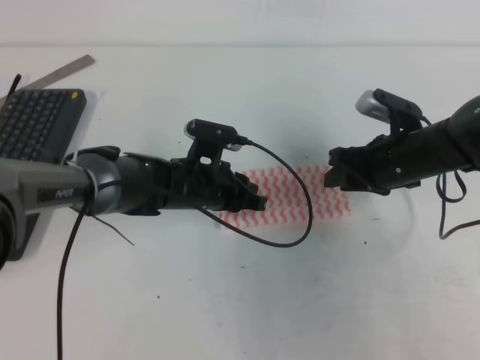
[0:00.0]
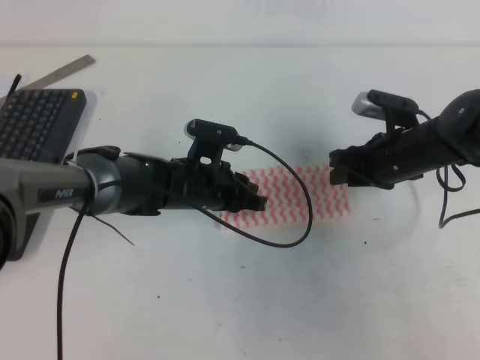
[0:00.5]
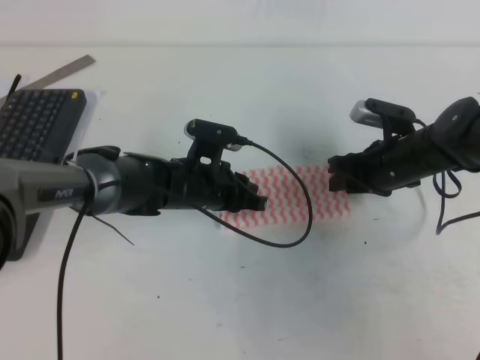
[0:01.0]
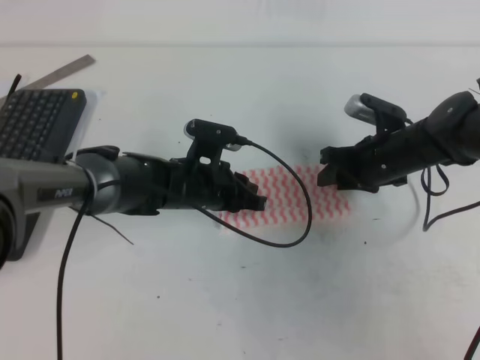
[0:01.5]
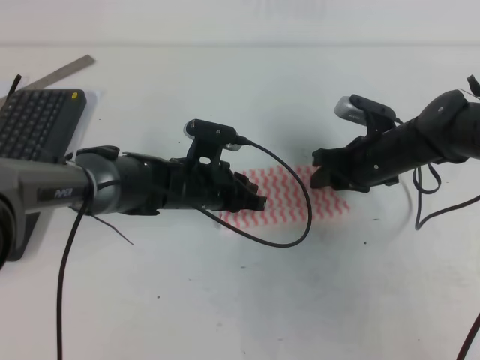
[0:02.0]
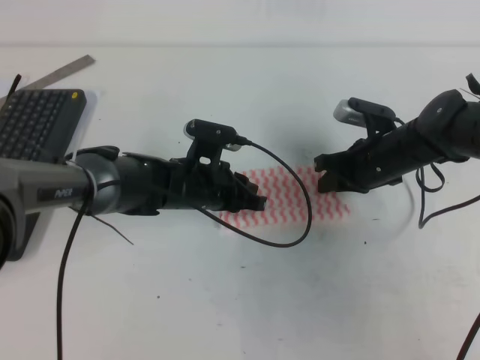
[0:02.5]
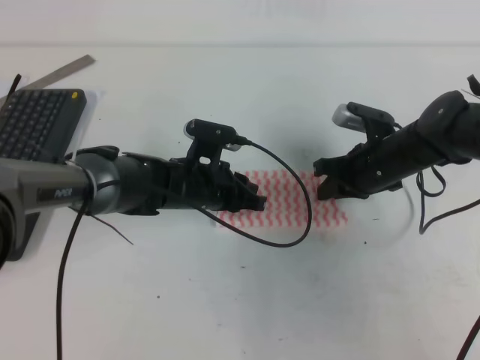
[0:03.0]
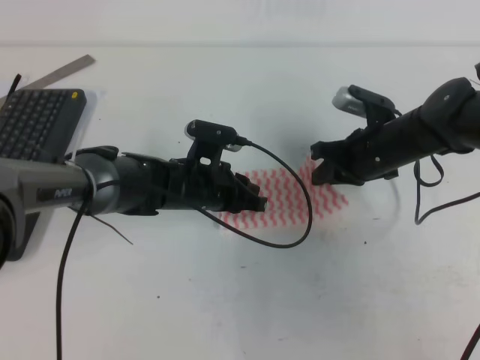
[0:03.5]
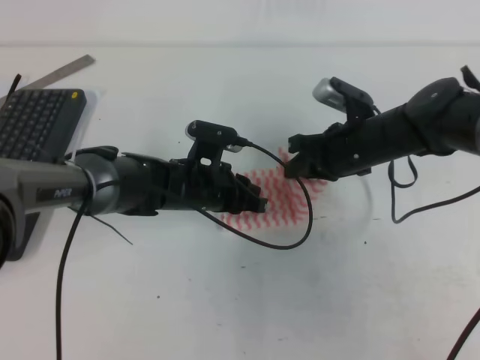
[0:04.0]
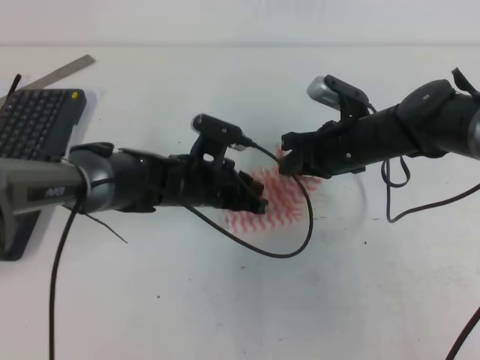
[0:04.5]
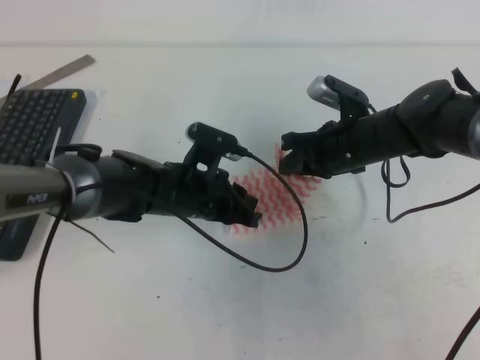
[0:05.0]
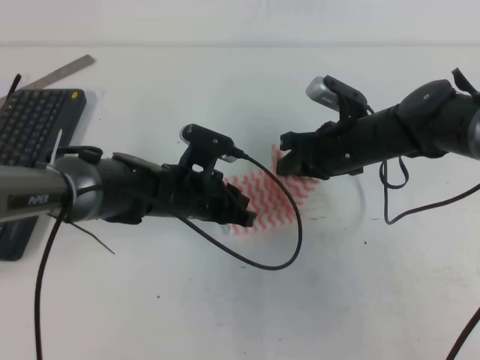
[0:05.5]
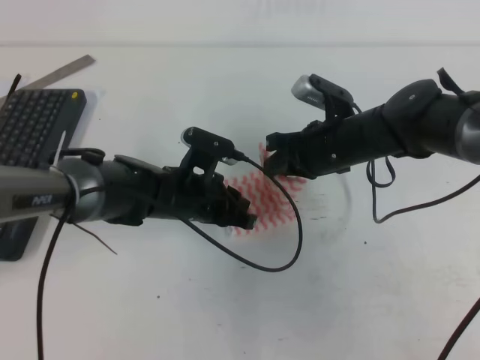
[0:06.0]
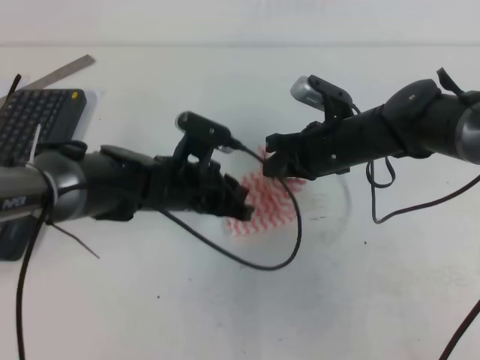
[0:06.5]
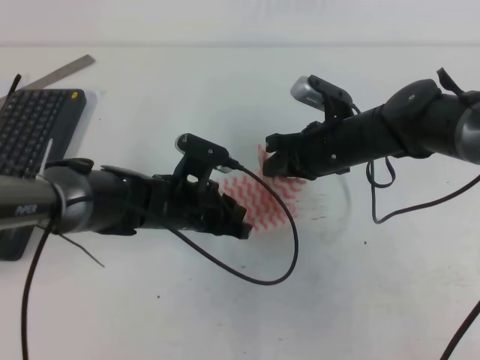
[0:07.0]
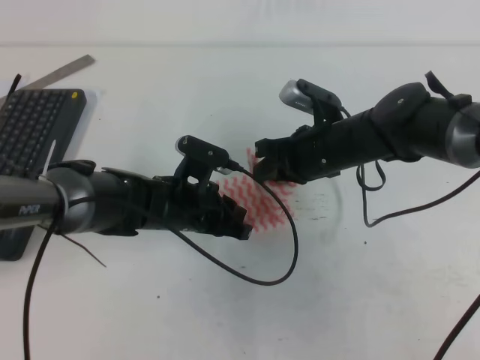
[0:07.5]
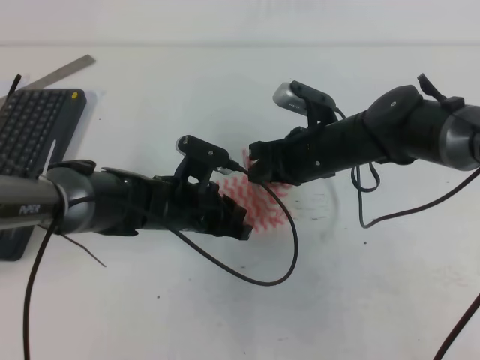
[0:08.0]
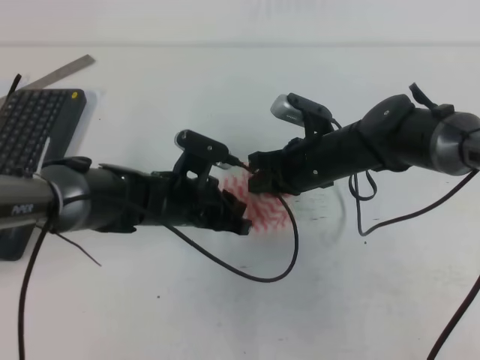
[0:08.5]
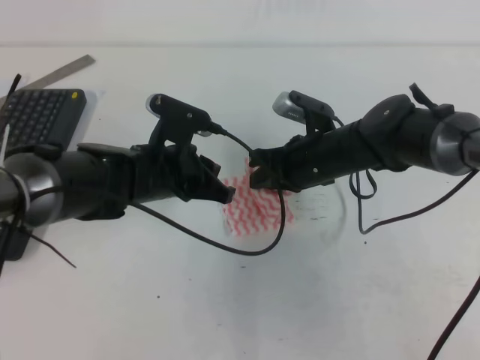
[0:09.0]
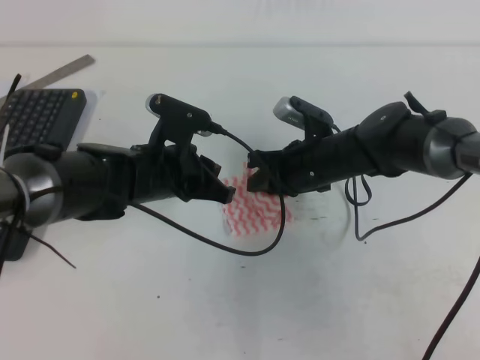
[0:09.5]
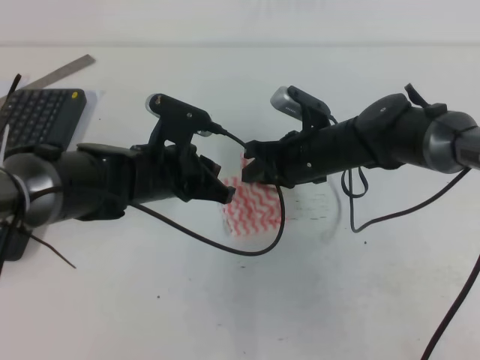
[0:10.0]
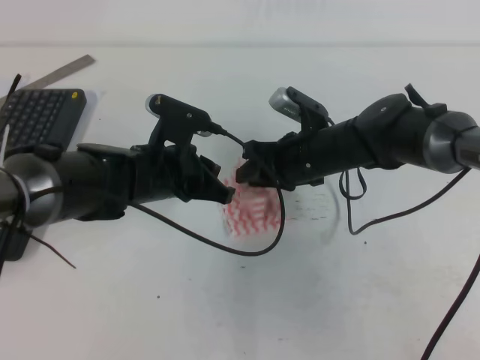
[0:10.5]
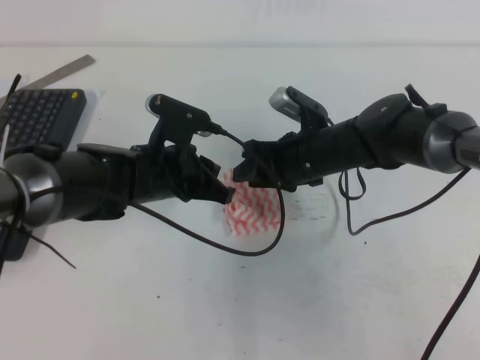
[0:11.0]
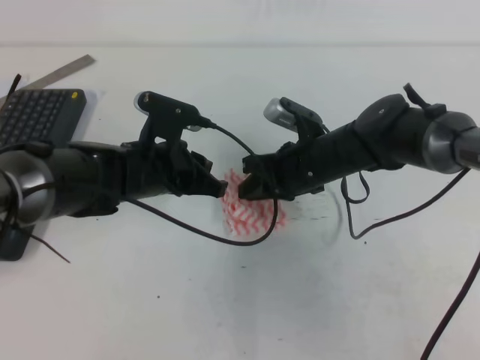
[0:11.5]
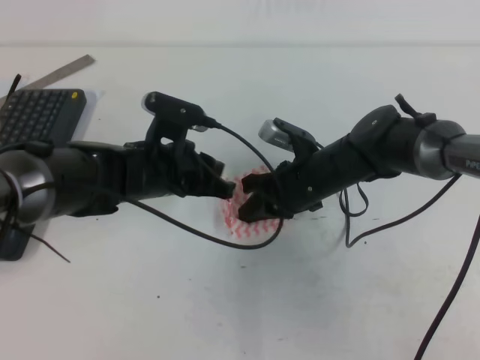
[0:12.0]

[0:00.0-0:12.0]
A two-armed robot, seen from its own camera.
0:00.0 to 0:02.0: The right gripper ends up about 5 cm from where it was.
0:02.0 to 0:04.0: The right gripper shifts by approximately 5 cm, and closes.
0:04.0 to 0:08.0: The grippers stay close to where they were, moving slightly.
0:08.0 to 0:10.0: The left gripper travels upward by about 5 cm.
0:10.0 to 0:12.0: The right gripper opens, then closes again.

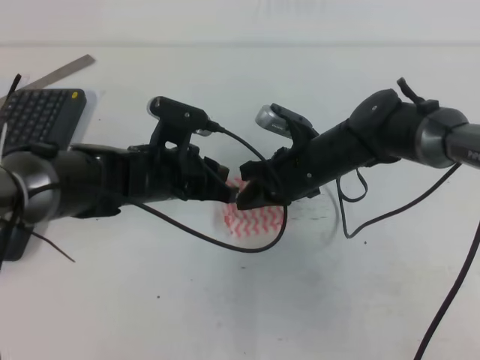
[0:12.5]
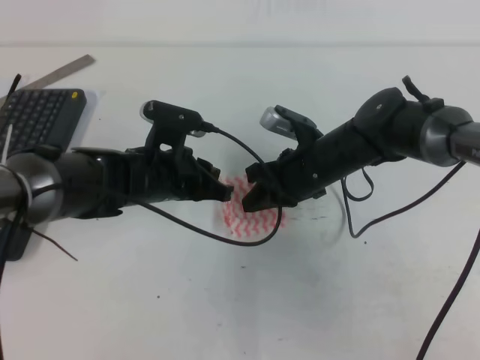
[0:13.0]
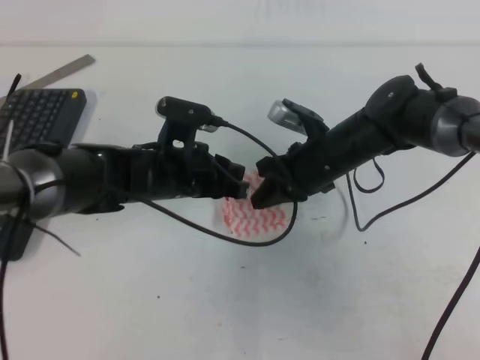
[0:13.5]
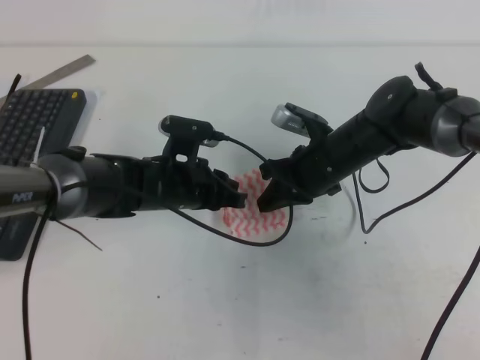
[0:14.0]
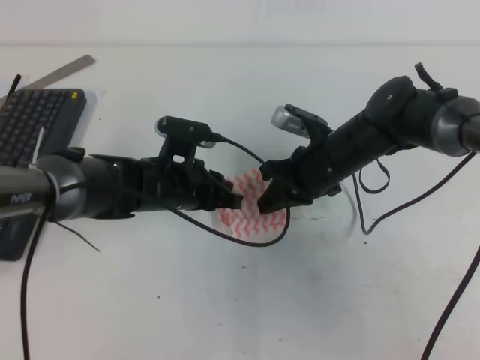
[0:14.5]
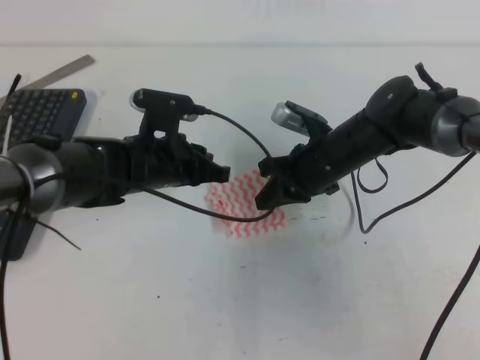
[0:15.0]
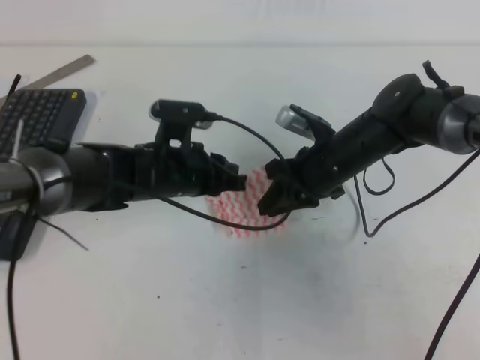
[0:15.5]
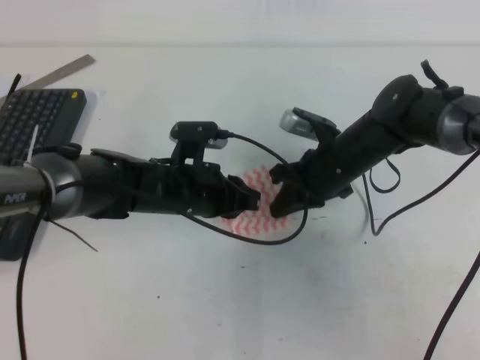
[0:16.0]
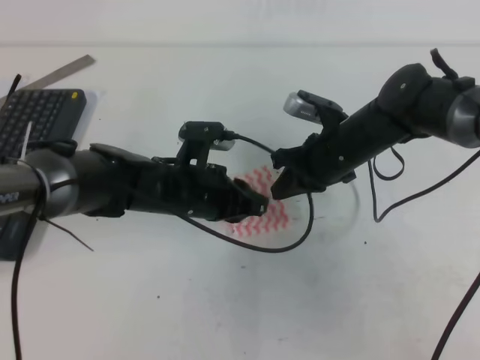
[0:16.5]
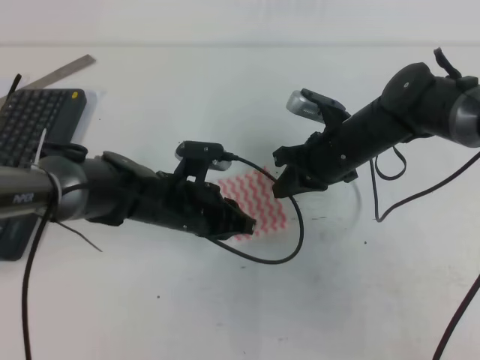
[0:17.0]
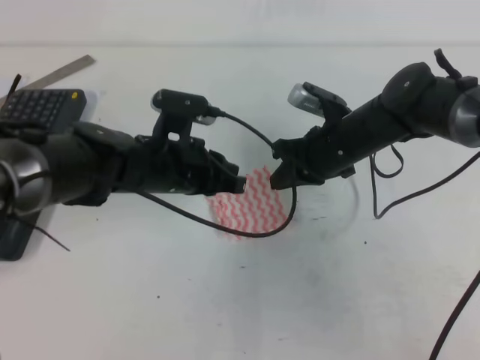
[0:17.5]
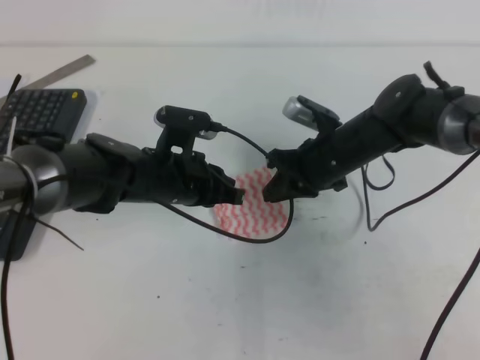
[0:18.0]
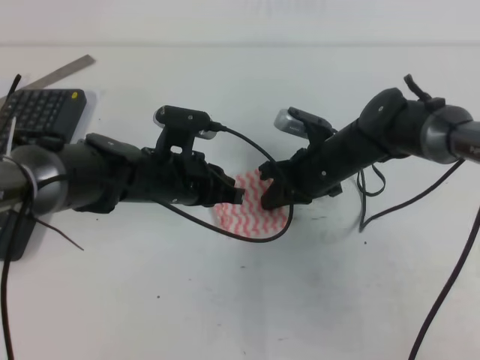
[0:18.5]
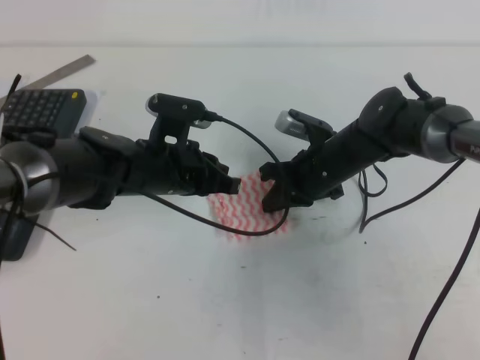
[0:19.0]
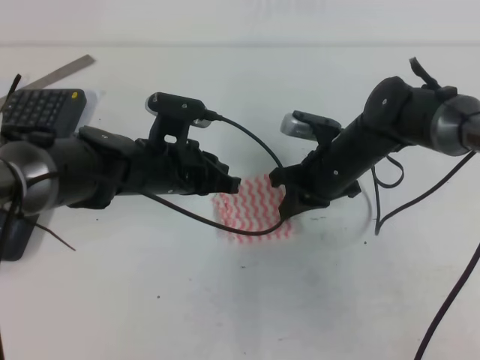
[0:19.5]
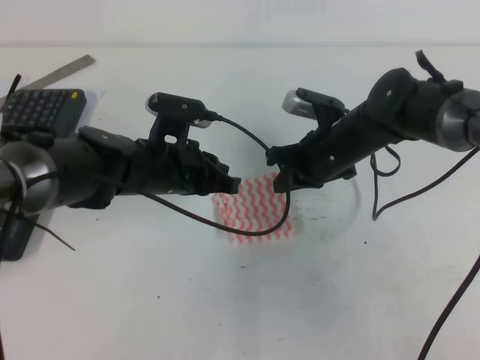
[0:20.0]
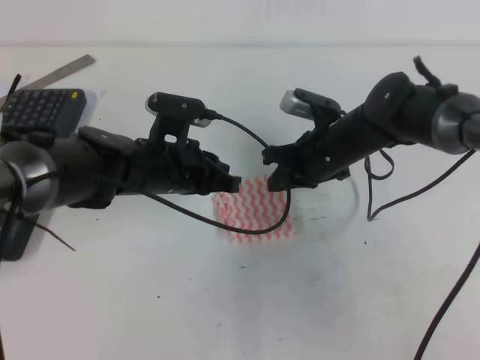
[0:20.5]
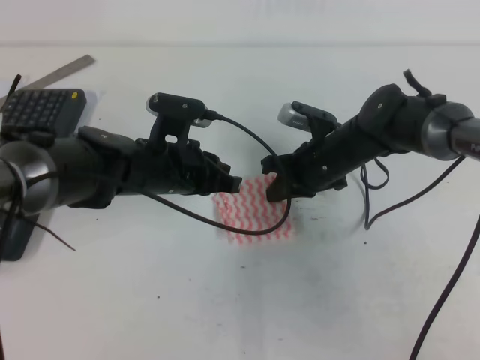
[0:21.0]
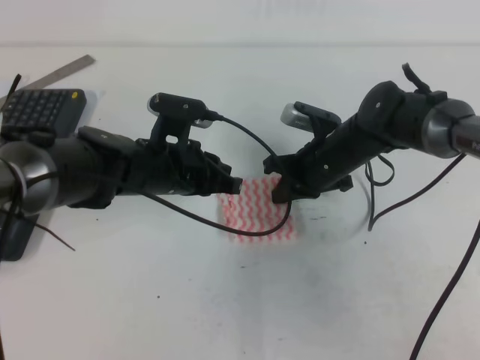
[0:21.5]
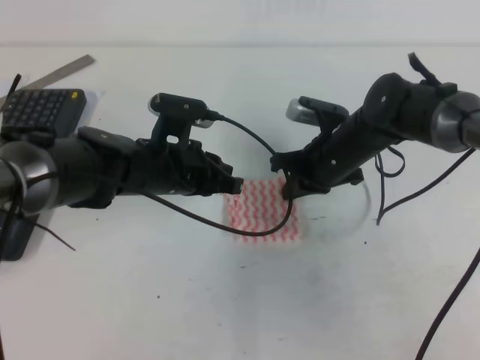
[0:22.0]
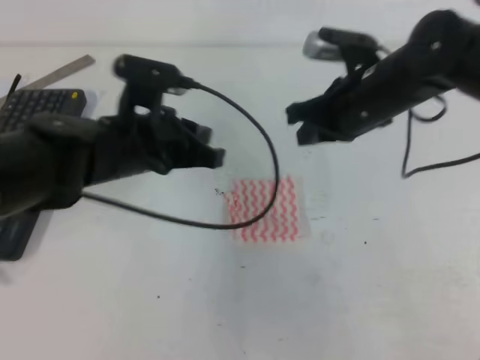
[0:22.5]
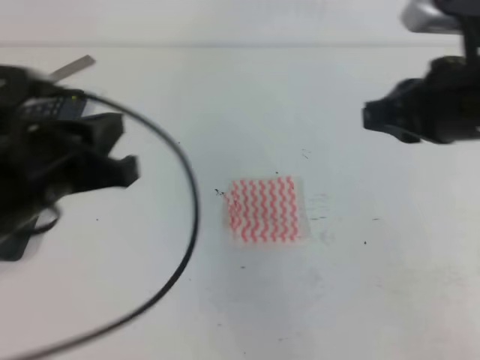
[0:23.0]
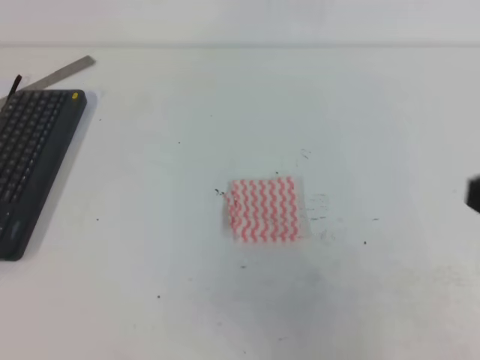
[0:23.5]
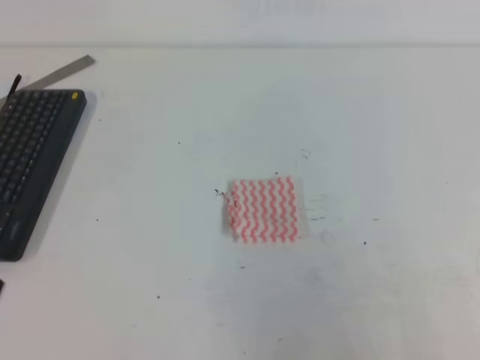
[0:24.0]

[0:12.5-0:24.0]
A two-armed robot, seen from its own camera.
0:12.5 to 0:14.5: The grippers make only small movements.
0:16.5 to 0:18.5: The grippers move only a little.
0:18.5 to 0:22.0: There are only small adjustments of the grippers.
0:22.0 to 0:24.0: The left gripper heads backward and to the left, covering some 35 cm. The right gripper travels backward and to the right by approximately 40 cm.

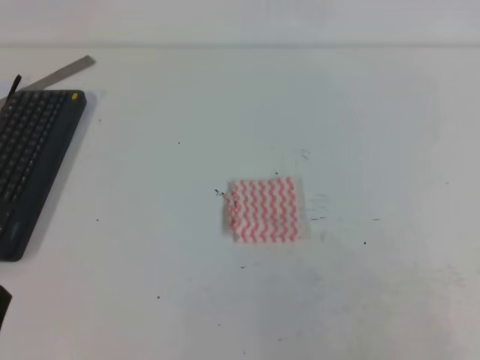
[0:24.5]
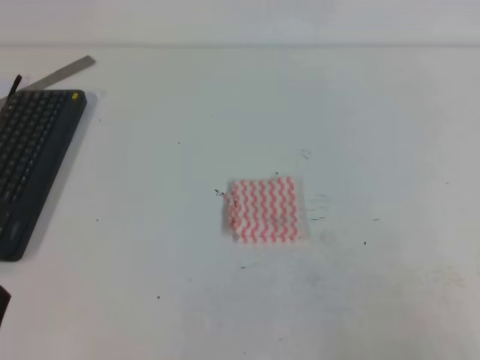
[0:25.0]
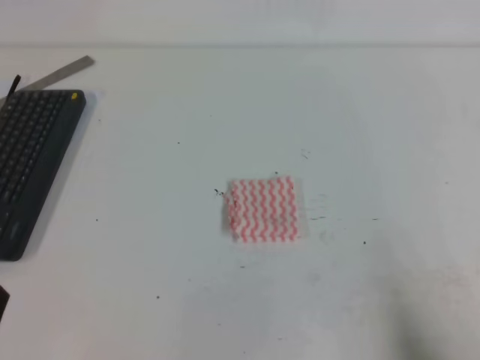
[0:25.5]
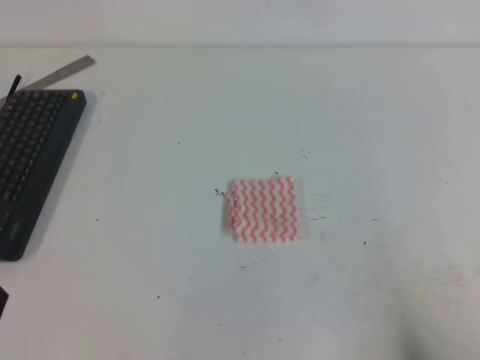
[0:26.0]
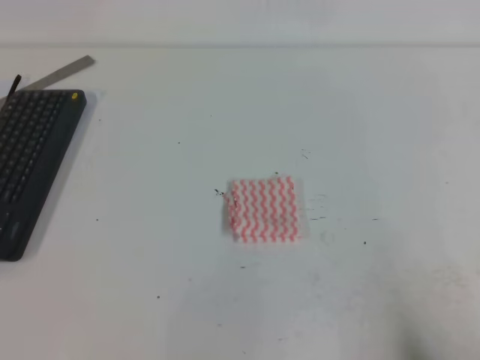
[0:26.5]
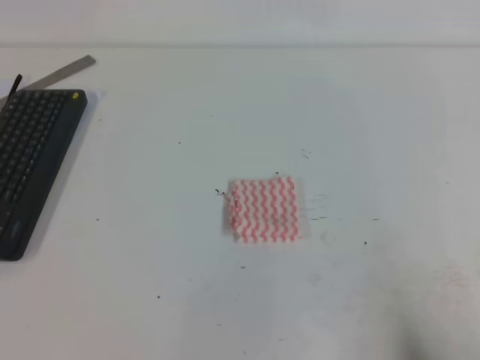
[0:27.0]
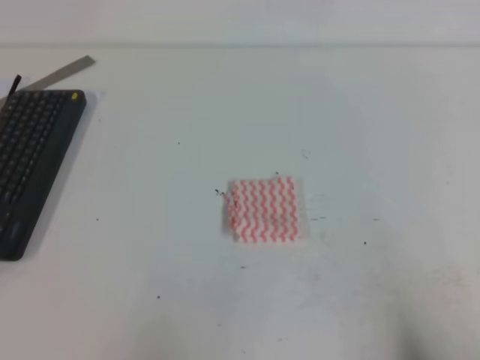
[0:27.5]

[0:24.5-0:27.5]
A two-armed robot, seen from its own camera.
0:24.5 to 0:26.0: The right gripper travels downward by some 10 cm.
